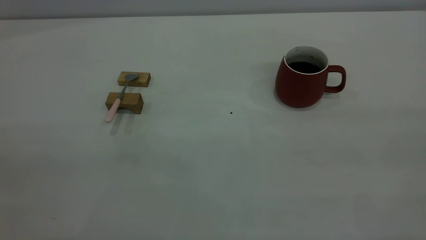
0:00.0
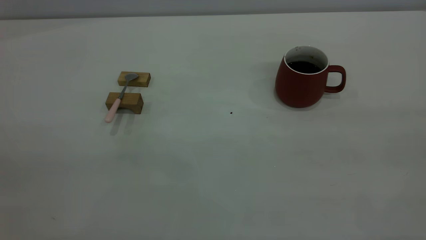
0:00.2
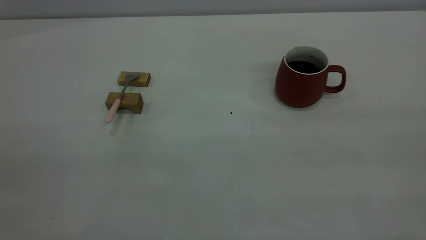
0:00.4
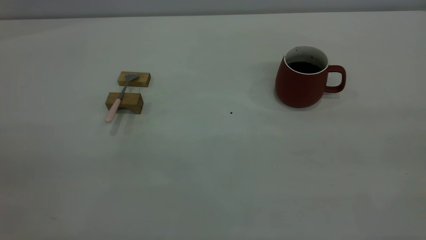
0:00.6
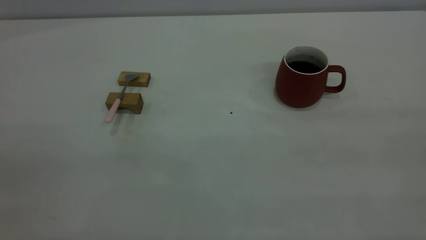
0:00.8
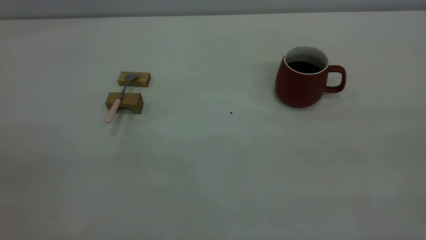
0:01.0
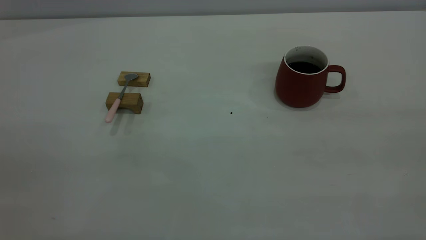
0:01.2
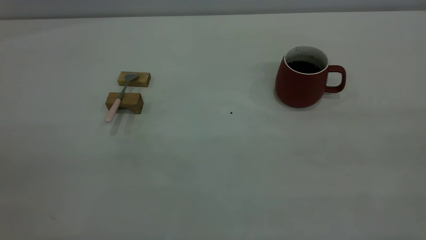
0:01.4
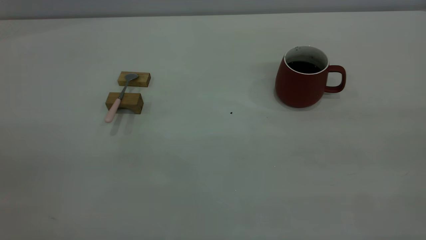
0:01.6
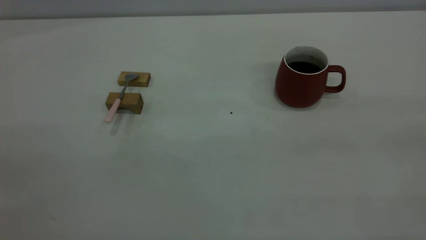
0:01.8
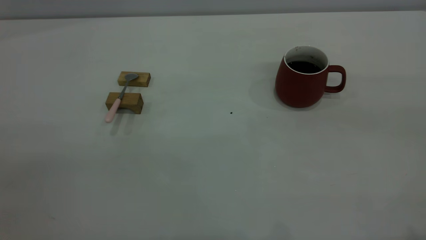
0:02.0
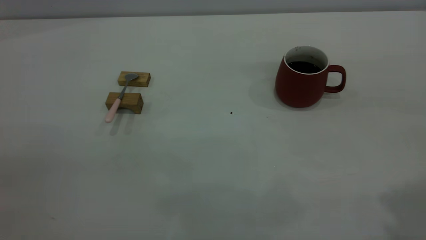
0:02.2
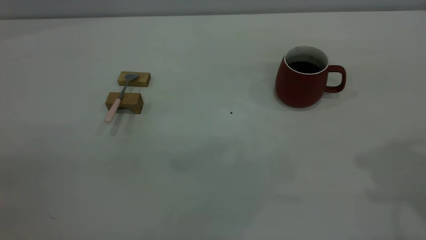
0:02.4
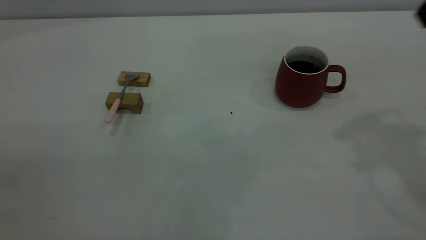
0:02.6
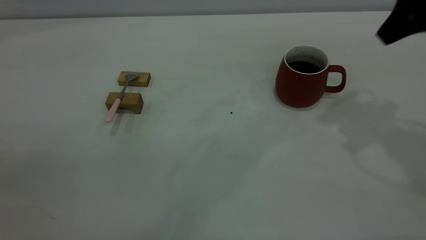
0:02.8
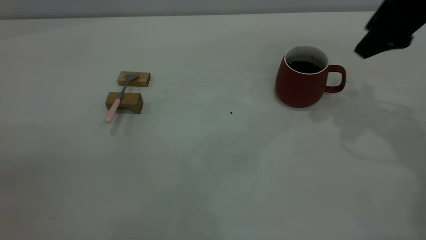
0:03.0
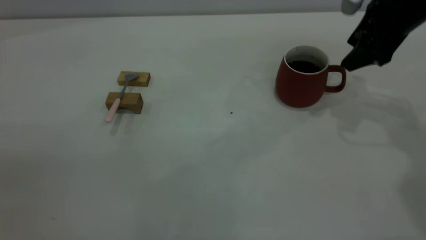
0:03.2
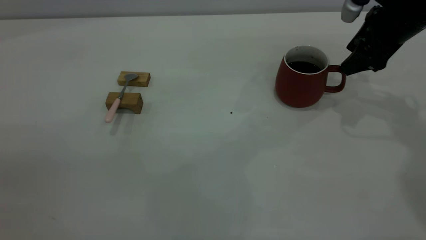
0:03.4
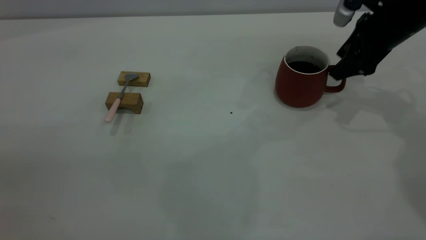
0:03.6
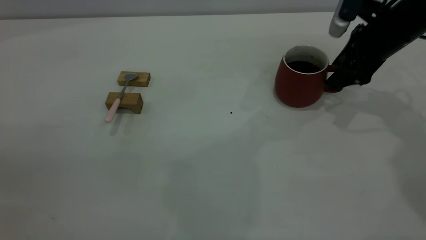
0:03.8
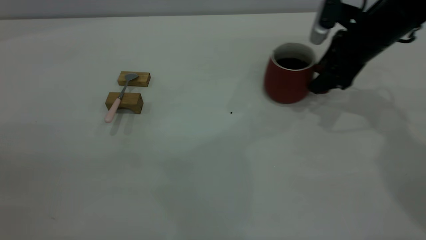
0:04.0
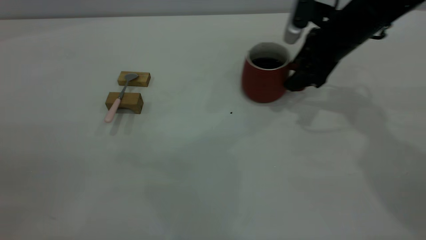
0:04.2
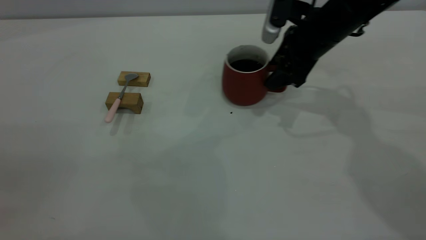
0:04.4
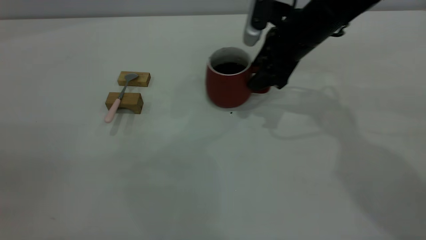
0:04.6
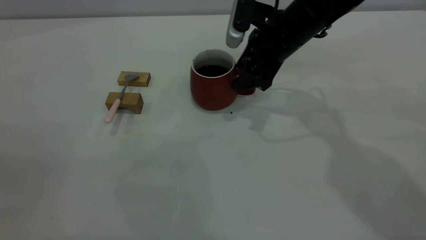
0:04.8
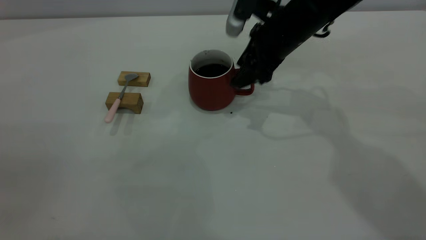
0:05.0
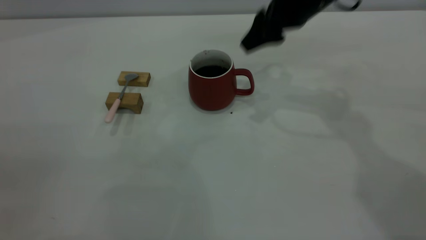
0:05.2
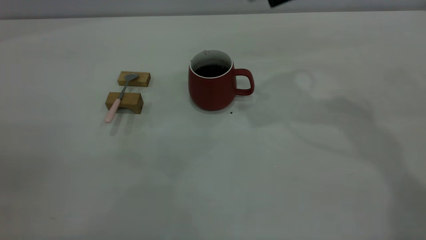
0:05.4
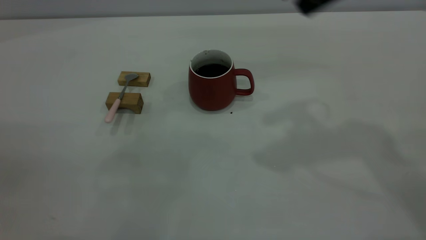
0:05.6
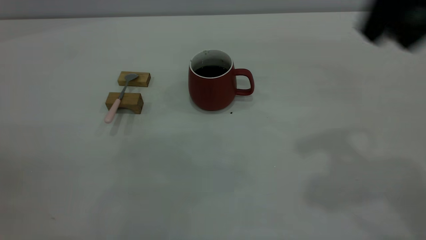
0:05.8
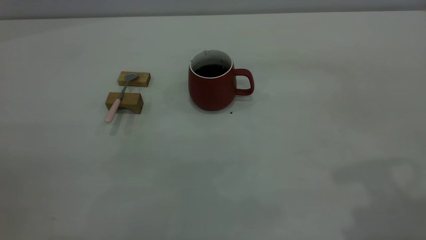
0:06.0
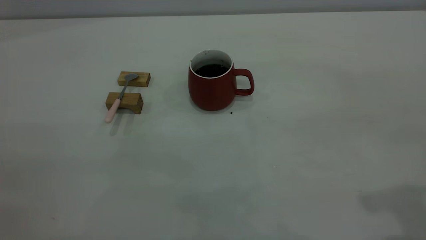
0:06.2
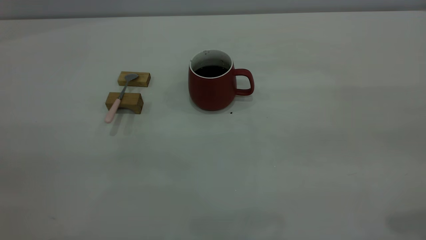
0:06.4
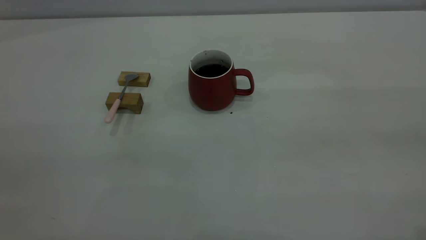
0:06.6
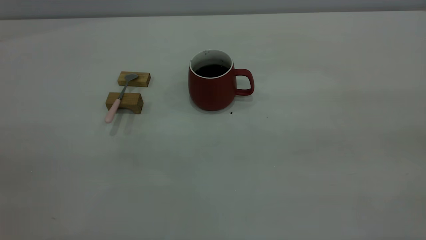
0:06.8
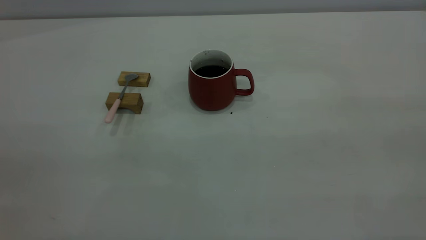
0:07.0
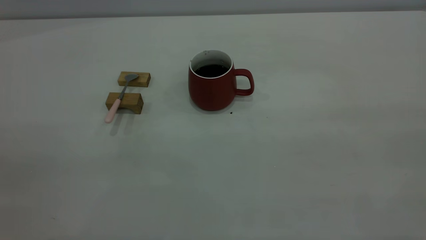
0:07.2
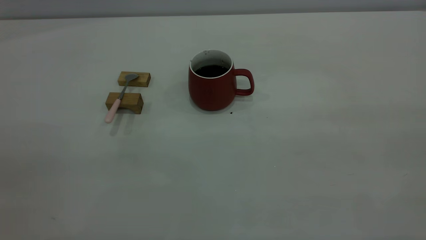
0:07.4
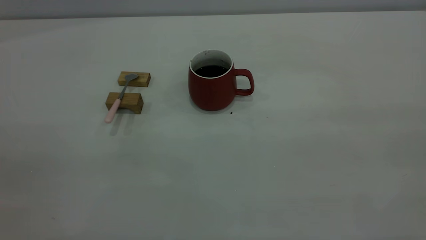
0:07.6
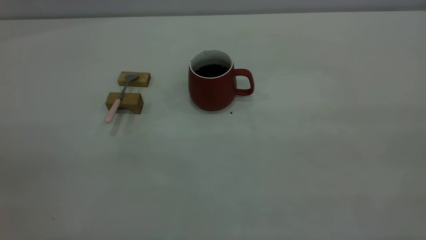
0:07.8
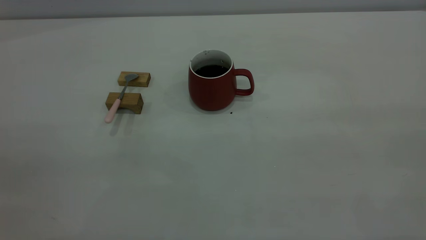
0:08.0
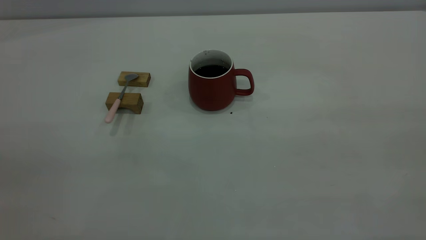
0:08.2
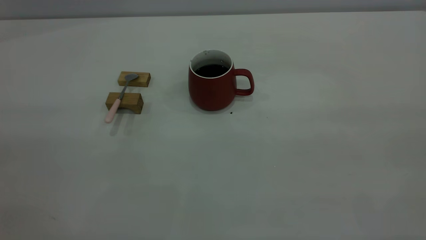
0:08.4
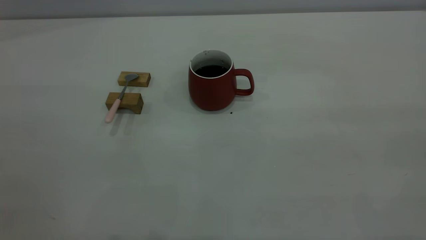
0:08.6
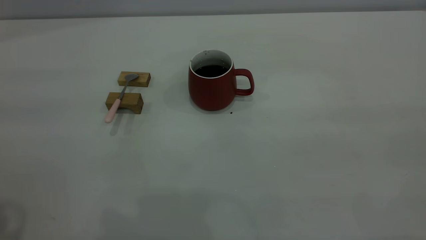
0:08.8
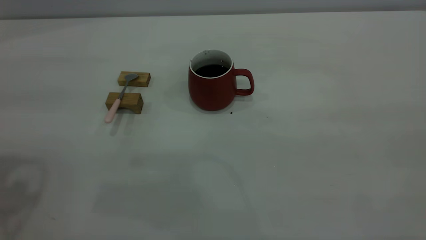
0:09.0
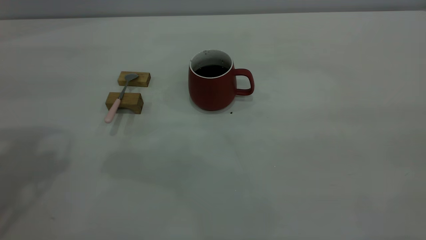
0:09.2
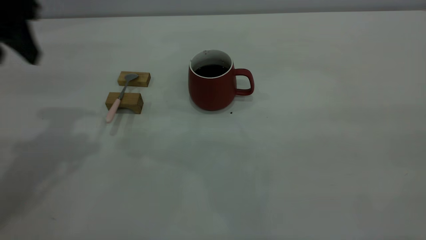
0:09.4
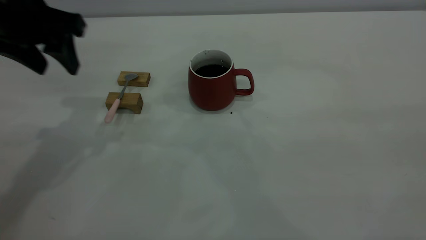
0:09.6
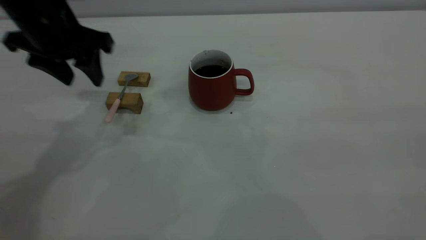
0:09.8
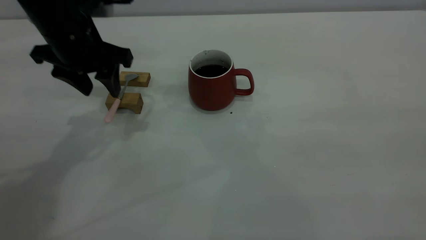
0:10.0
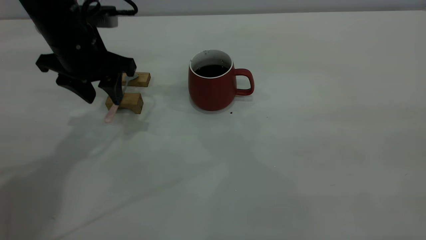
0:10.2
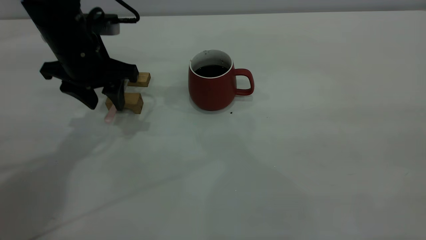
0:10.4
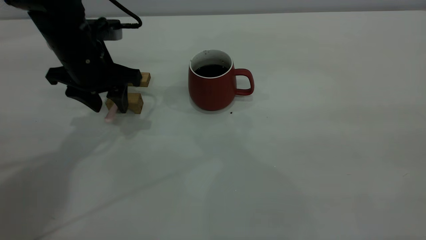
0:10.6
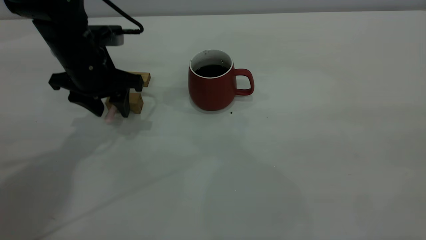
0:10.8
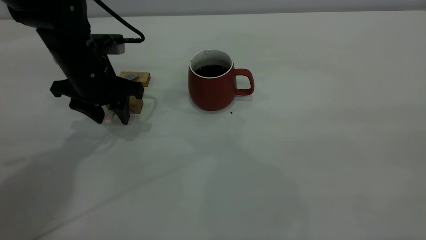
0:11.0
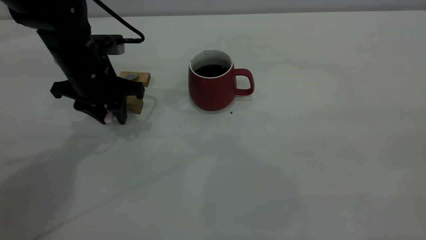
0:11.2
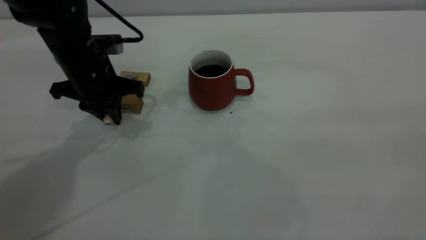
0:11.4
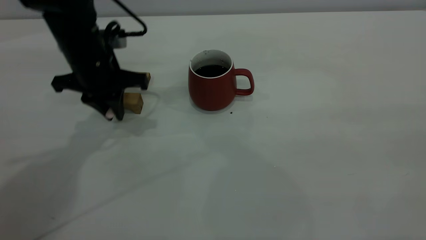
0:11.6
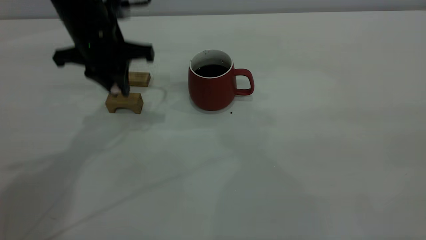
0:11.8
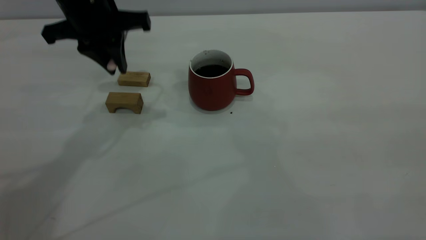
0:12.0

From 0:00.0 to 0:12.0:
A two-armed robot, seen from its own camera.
Step, from 0:00.0 to 0:05.0: Move the cup with coffee to the center of view.
From 0:00.0 to 0:01.6: Both grippers stay put.
From 0:01.6 to 0:03.0: The right gripper shifts approximately 40 cm forward and downward.
From 0:03.0 to 0:04.4: The right gripper goes some 15 cm to the left and downward.
From 0:04.4 to 0:06.0: The right gripper shifts about 30 cm backward and upward.
From 0:09.0 to 0:10.4: The left gripper shifts some 30 cm downward, forward and to the right.
From 0:10.4 to 0:12.0: The left gripper is displaced upward by some 10 cm, and closes up.

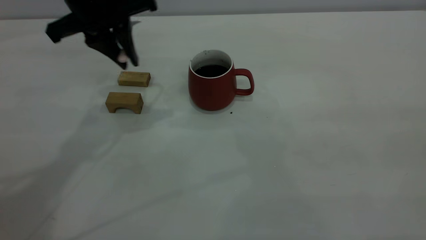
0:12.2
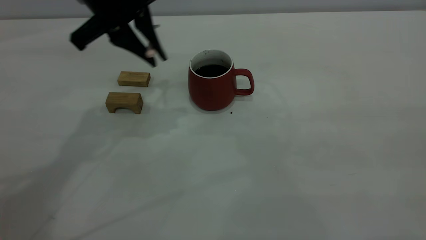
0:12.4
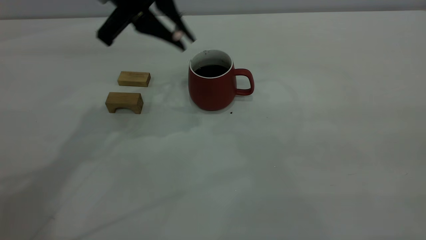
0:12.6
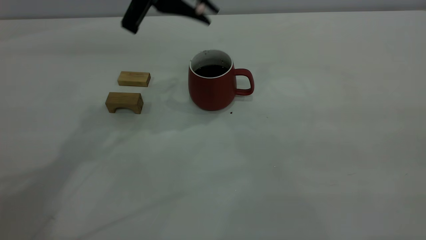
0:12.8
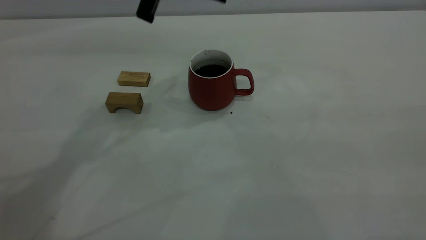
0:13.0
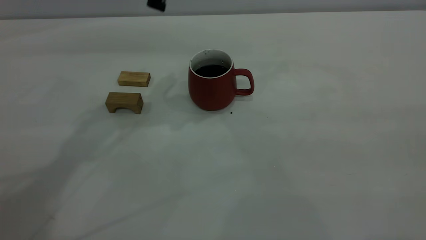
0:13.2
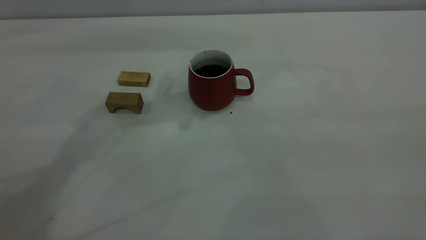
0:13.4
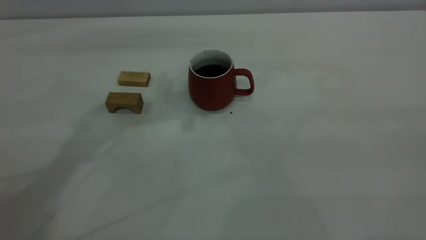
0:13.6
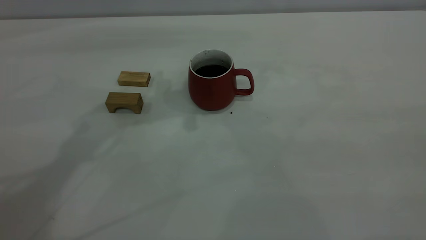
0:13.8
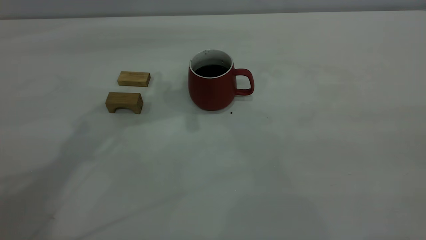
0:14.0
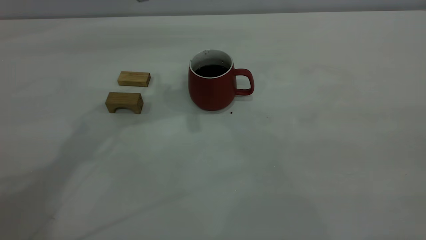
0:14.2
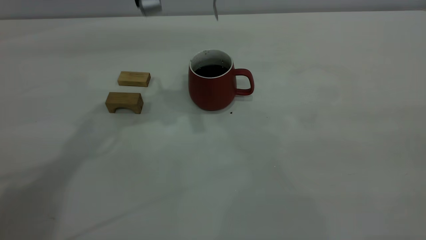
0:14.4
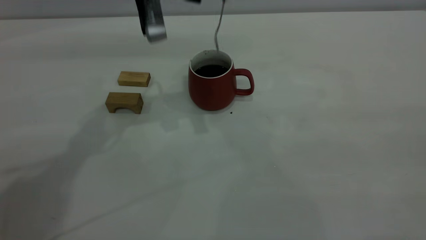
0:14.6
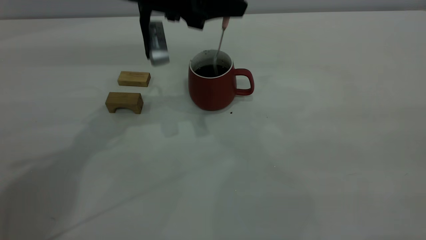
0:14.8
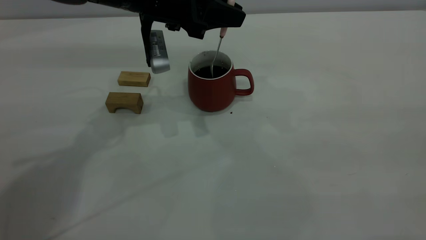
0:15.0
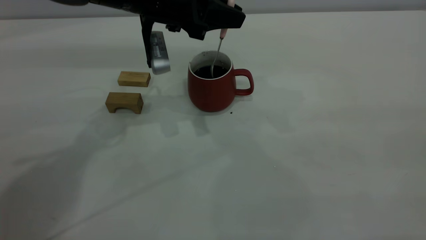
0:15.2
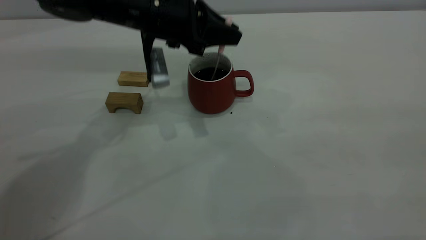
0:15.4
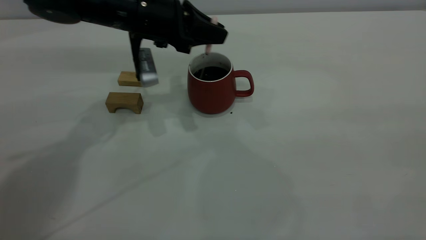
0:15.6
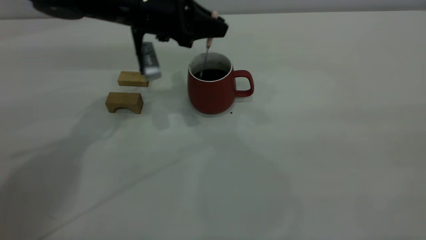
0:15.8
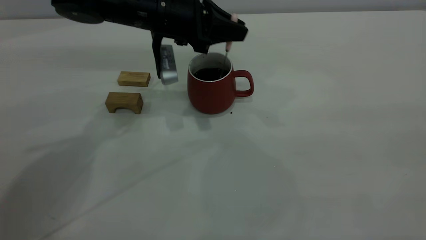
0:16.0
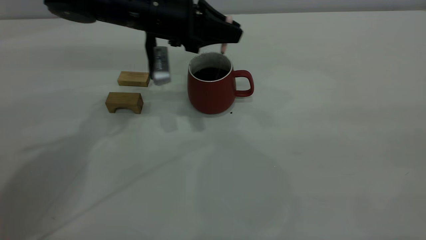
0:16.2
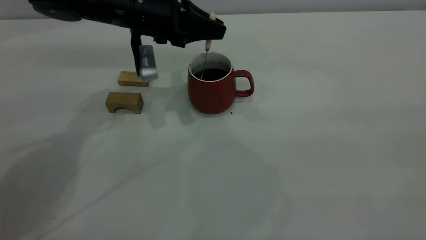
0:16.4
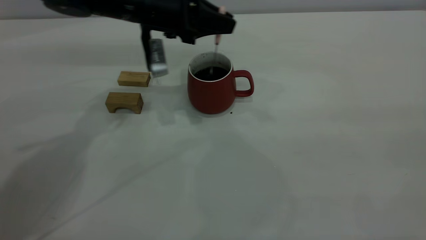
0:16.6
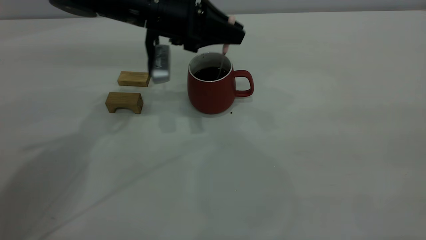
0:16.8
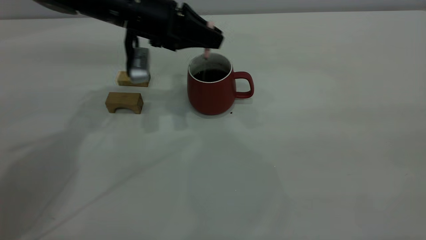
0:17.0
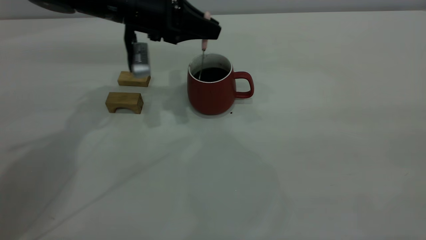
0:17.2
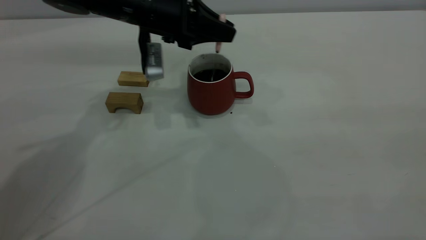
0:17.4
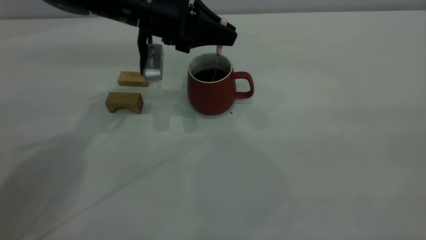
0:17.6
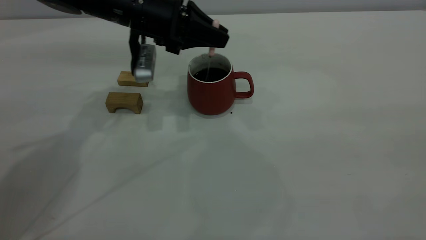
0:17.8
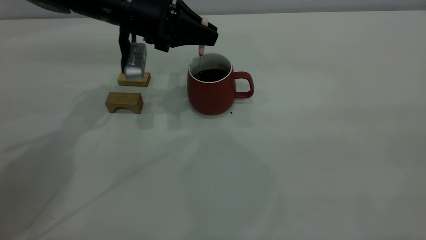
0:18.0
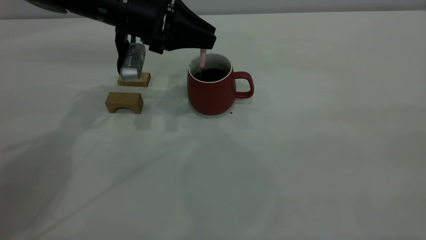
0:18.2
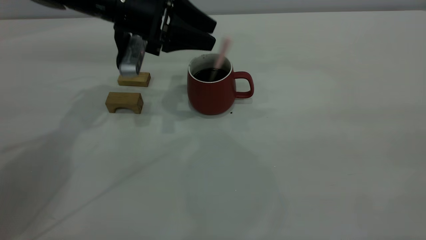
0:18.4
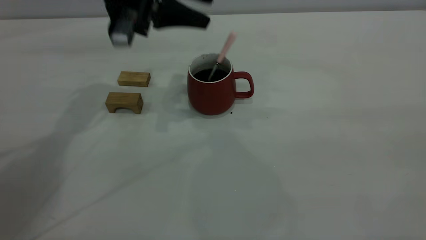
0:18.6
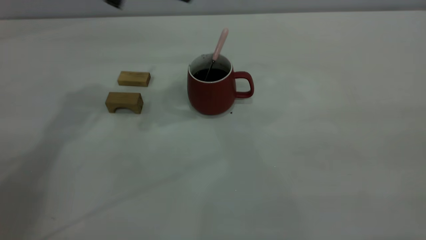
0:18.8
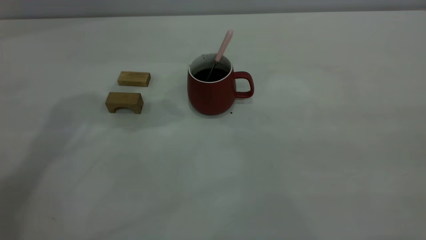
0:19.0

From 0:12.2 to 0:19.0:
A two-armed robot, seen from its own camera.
Step, from 0:12.4 to 0:18.4: Stir the coffee in the cup.
From 0:12.2 to 0:13.6: The left gripper goes some 5 cm to the right.
From 0:13.6 to 0:15.0: The left gripper is displaced downward by roughly 10 cm.
From 0:15.0 to 0:17.6: The grippers make only small movements.
From 0:17.6 to 0:19.0: The left gripper heads upward, covering roughly 20 cm, and opens its fingers.
